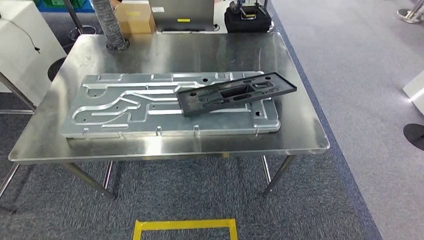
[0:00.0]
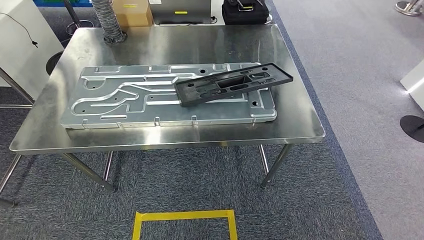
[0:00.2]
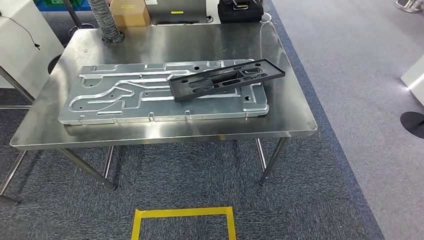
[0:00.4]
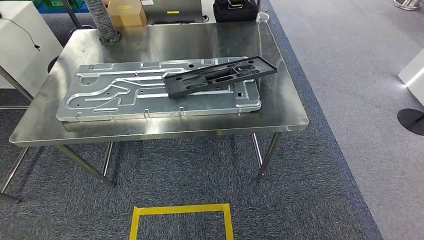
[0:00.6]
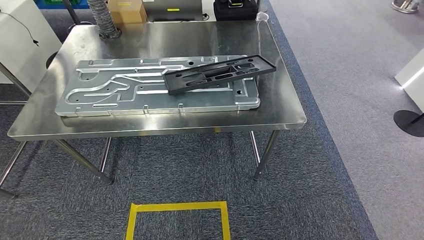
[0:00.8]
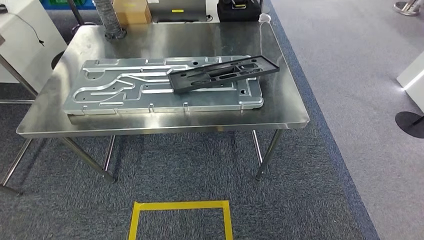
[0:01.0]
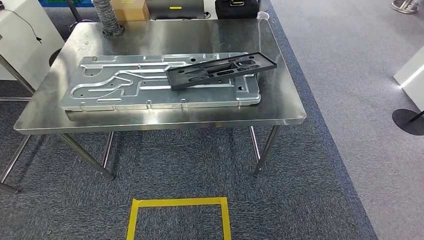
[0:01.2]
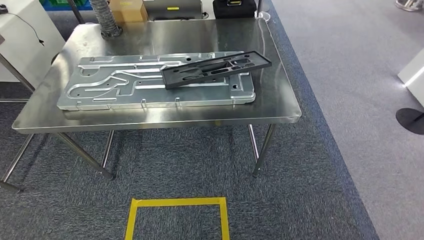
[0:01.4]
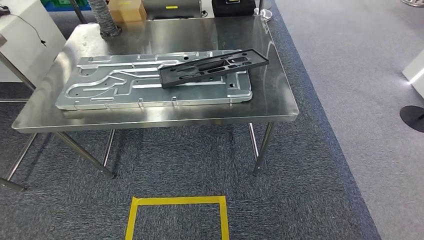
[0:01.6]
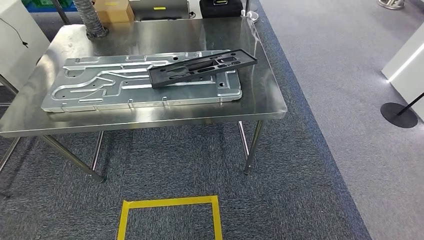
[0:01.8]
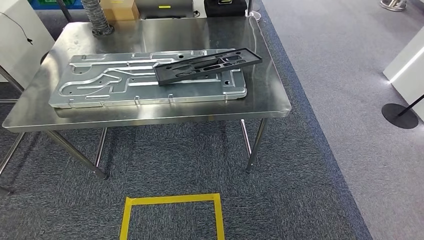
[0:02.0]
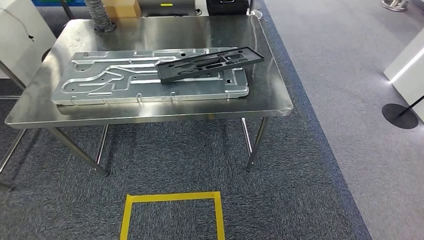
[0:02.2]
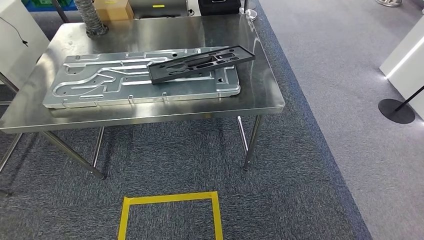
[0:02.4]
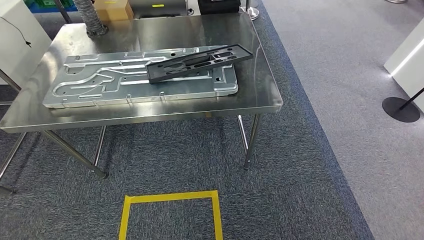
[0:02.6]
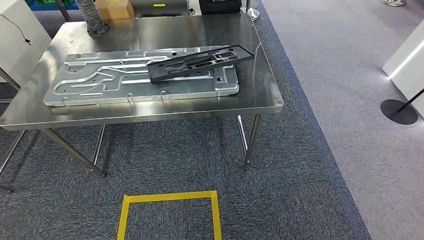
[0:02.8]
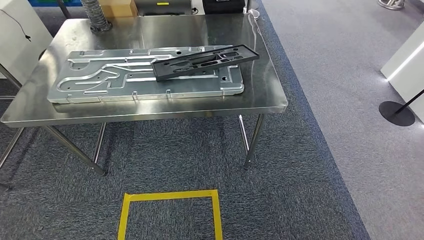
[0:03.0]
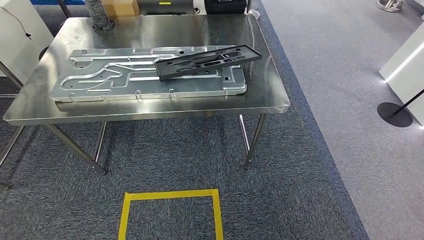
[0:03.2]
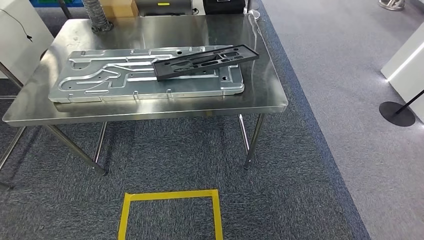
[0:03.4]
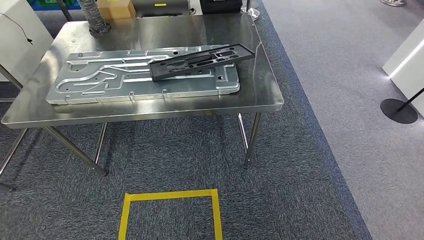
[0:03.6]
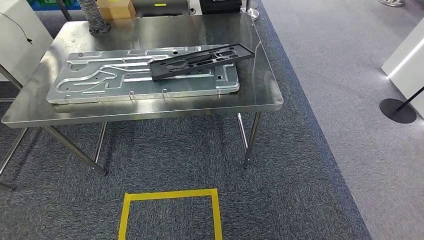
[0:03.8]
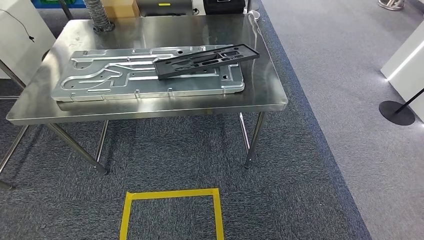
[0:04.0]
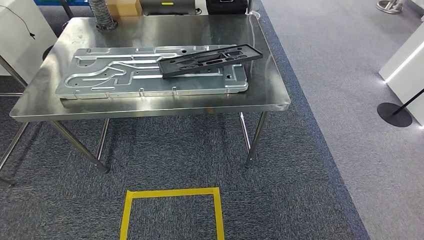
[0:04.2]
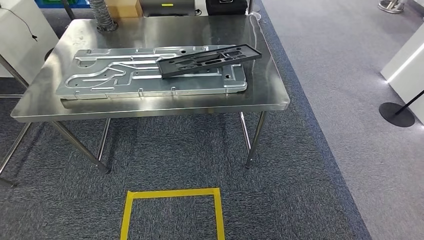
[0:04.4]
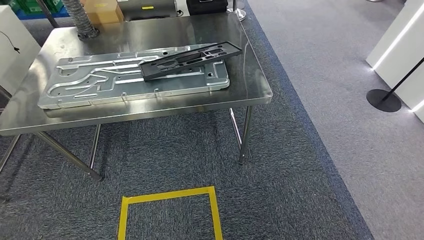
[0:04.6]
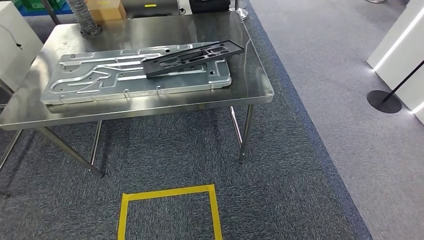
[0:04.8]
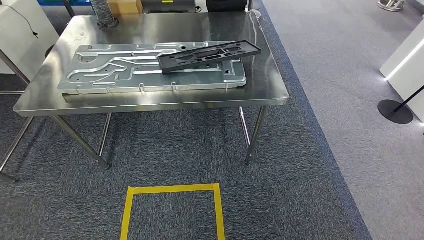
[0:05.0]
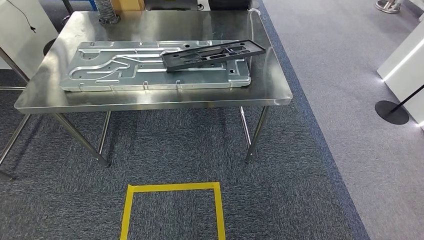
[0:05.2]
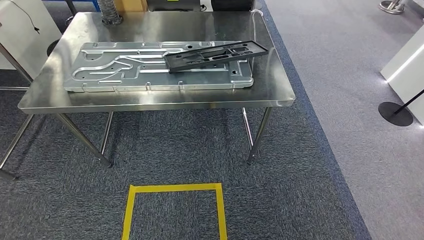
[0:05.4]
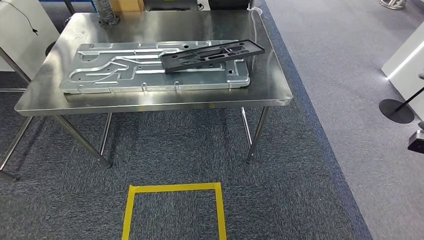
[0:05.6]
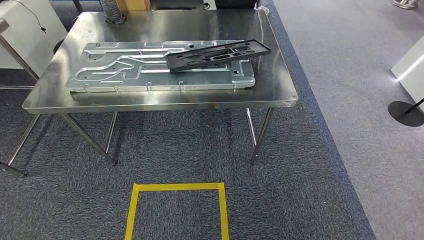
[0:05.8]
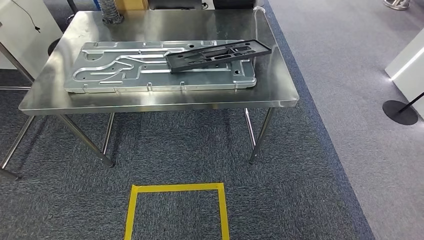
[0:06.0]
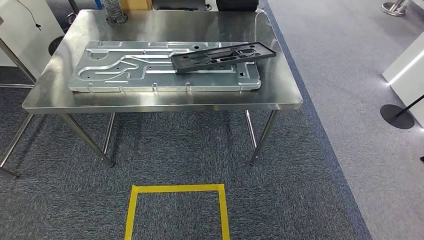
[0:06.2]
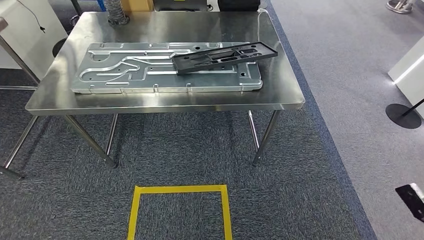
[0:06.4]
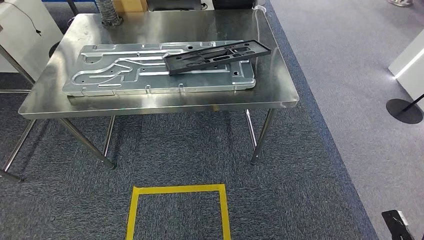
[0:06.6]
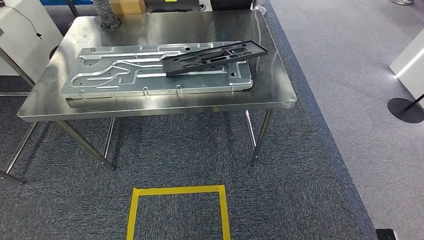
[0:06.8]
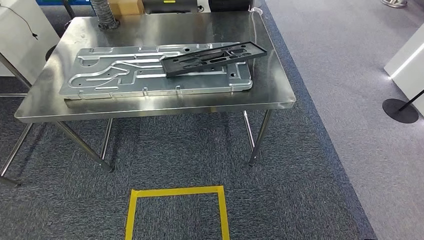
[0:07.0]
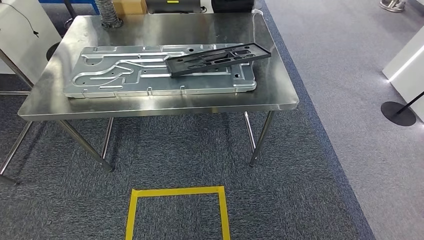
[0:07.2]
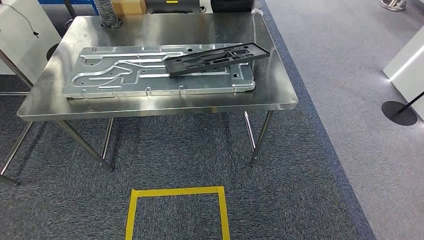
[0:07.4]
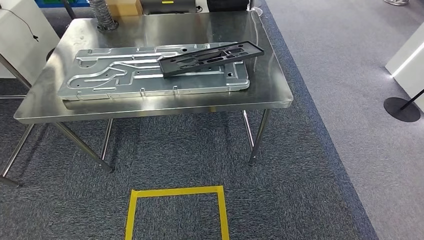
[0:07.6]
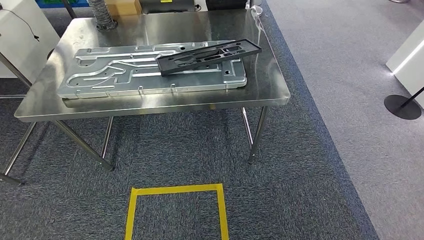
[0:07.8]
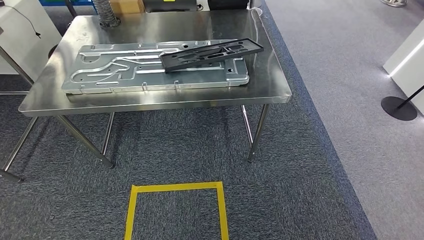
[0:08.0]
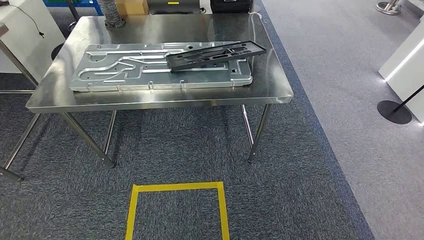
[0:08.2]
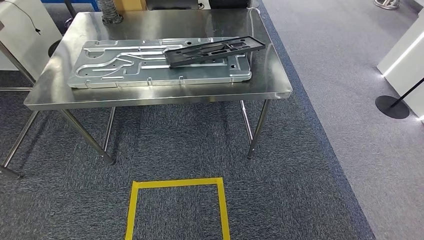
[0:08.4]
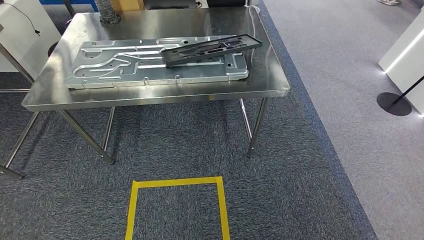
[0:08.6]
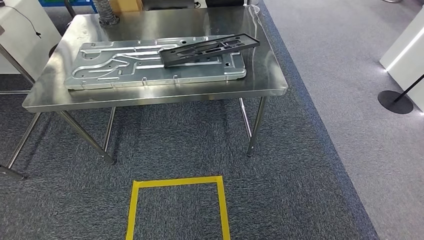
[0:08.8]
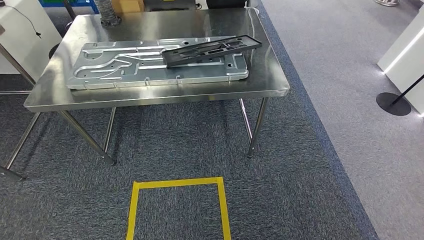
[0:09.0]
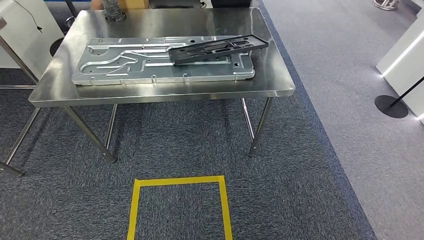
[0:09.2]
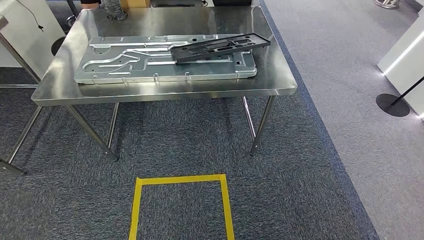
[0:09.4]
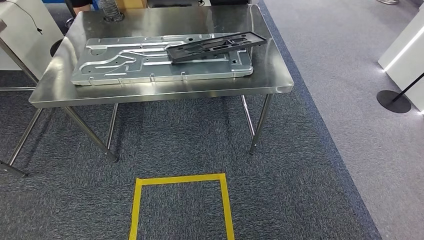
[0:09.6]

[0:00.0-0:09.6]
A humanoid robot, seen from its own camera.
Step, 0:00.0 to 0:09.6: Return to the initial position at the shelf.
0:06.4 to 0:08.0: The right hand goes approximately 40 cm to the left and downward.
